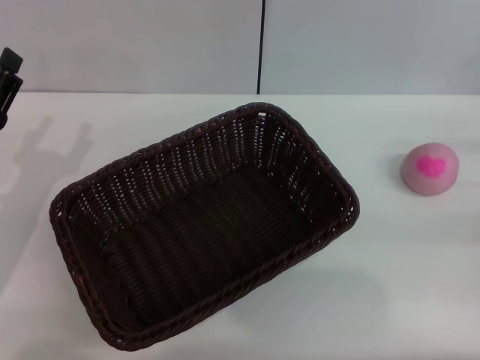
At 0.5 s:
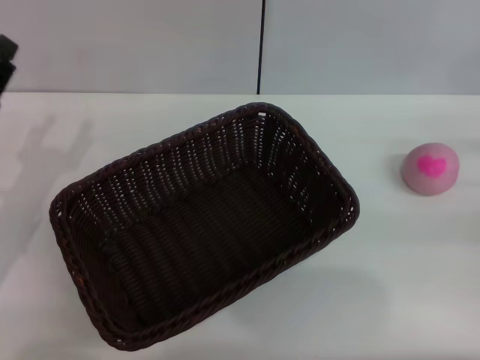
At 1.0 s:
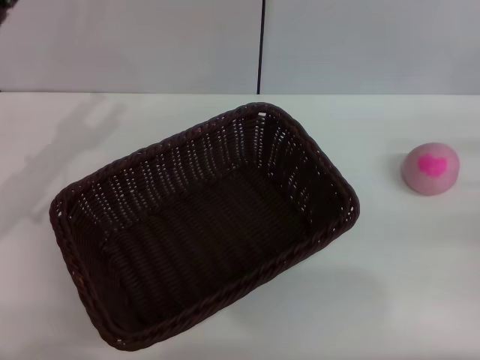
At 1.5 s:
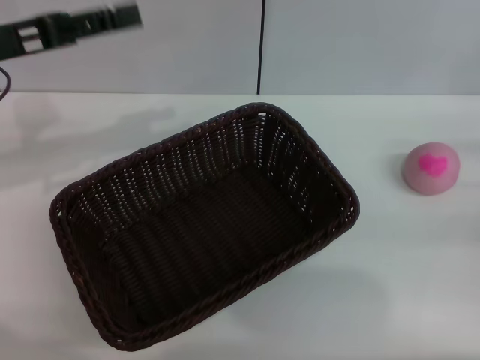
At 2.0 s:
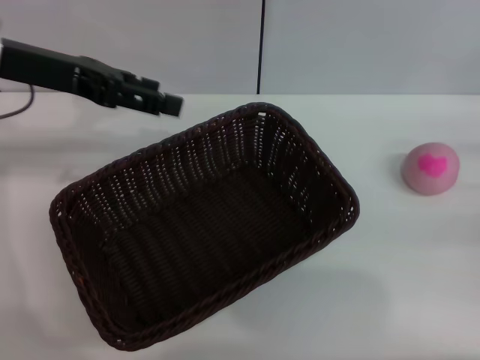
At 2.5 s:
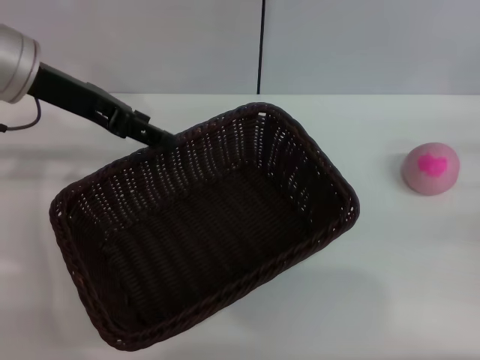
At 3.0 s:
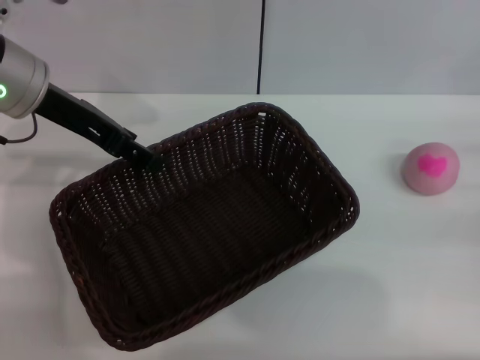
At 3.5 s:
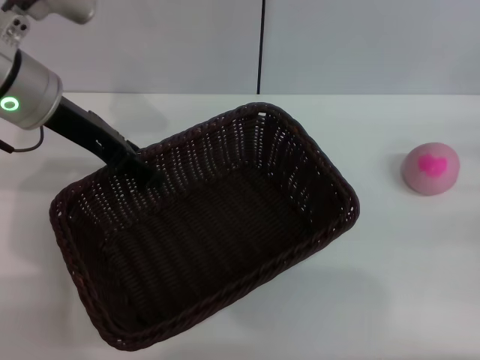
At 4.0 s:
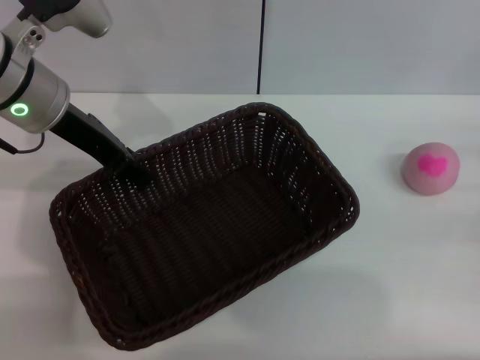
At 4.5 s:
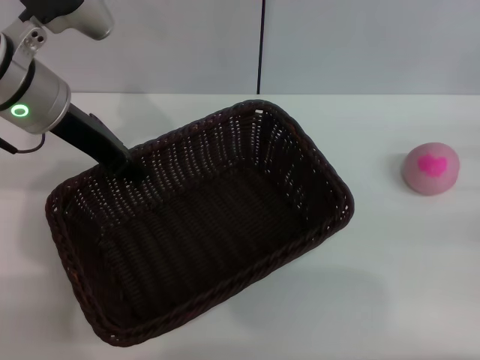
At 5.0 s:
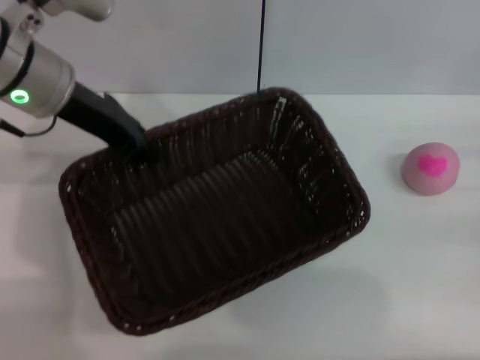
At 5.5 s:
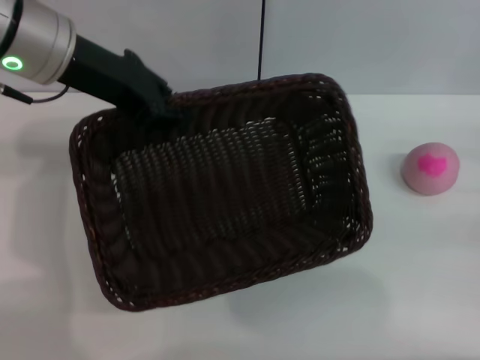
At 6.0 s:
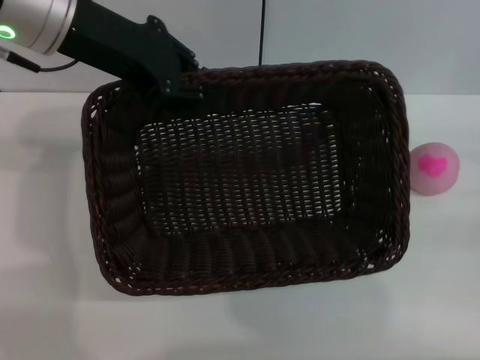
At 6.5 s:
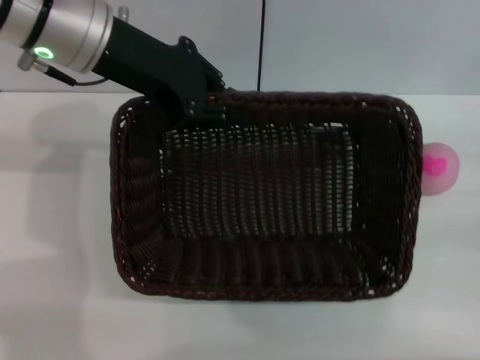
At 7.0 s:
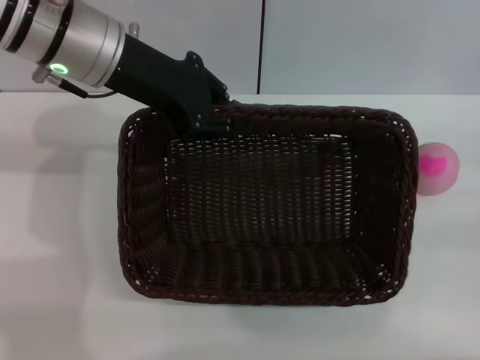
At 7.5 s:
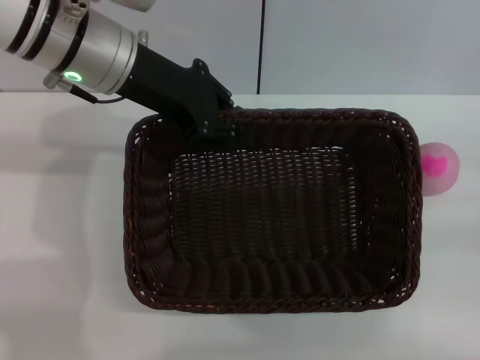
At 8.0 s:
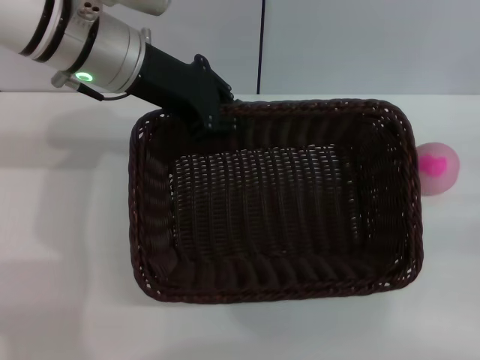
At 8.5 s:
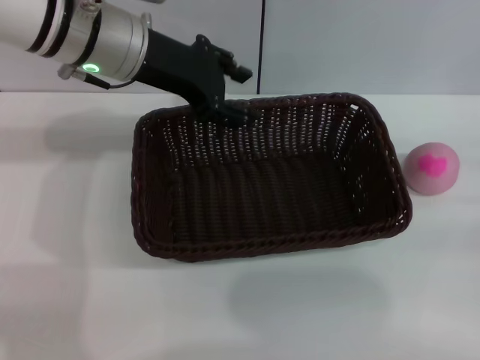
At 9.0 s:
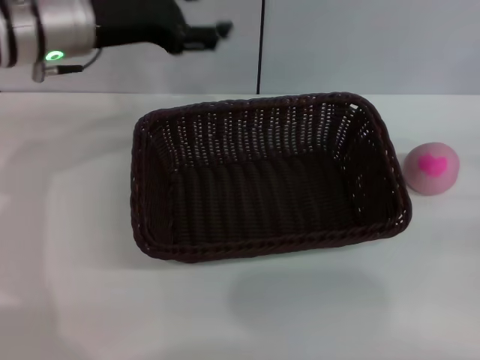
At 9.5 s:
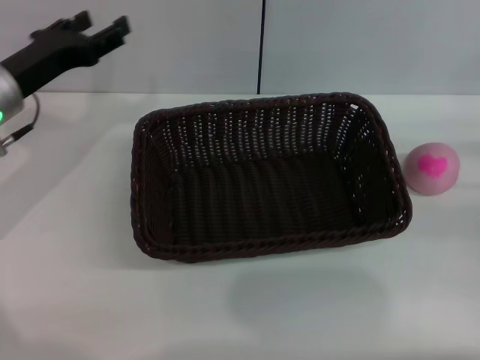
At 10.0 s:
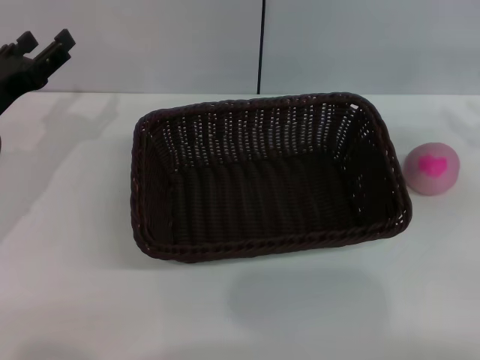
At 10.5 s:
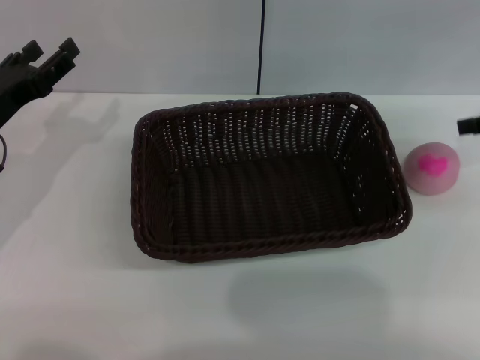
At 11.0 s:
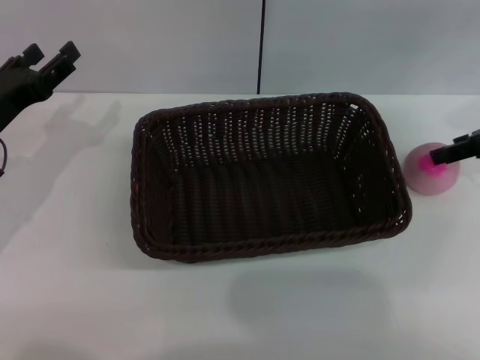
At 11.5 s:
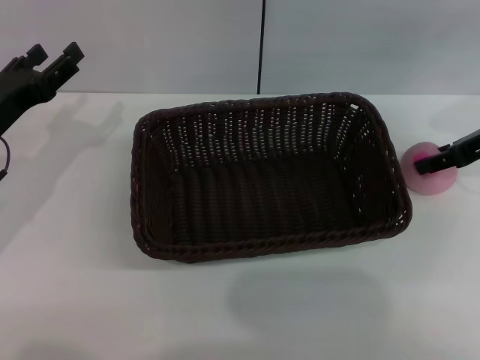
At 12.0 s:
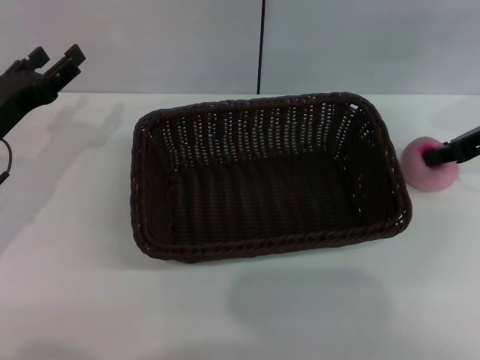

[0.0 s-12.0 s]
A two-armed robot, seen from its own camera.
Step, 0.0 to 4.5 s: Pick up the dark basket with the left gripper.
0.0 to 2.0 s: The left gripper is displaced upward and forward by some 20 cm.
2.0 to 4.0 s: The left gripper ends up roughly 5 cm from where it was.
4.0 to 6.0 s: The left gripper goes some 10 cm upward, and closes.
6.0 to 8.0 s: The left gripper travels downward by approximately 5 cm.
8.0 to 10.0 s: The left gripper shifts about 20 cm to the left, downward and backward, and opens. The right gripper moves upward and forward, roughly 10 cm.
10.0 to 12.0 s: The right gripper goes approximately 10 cm to the left and forward, and closes its fingers.

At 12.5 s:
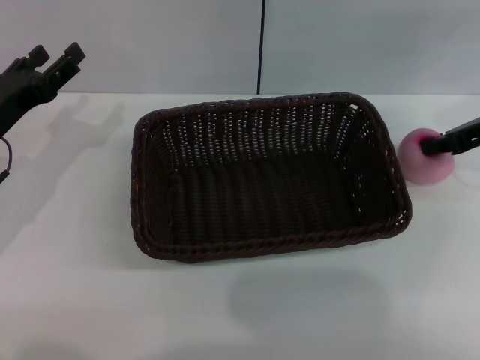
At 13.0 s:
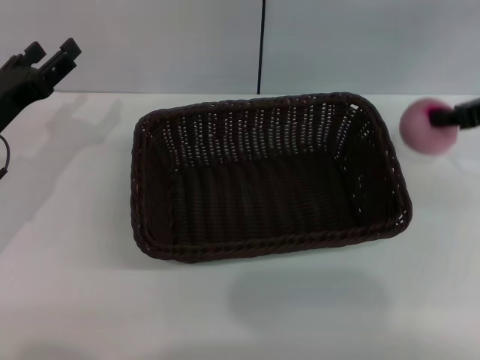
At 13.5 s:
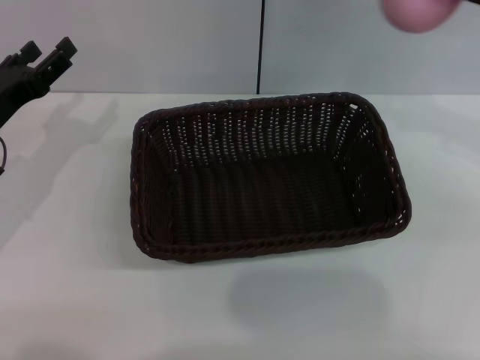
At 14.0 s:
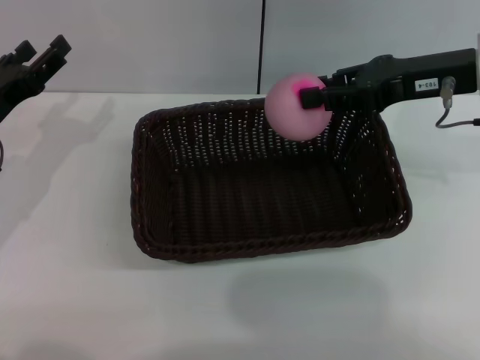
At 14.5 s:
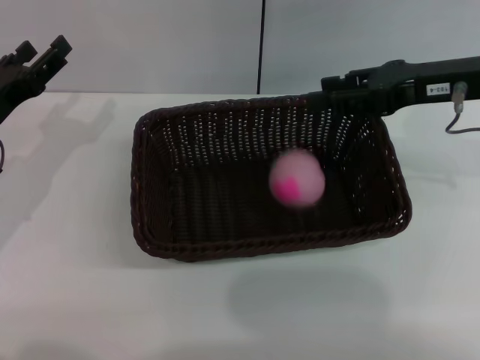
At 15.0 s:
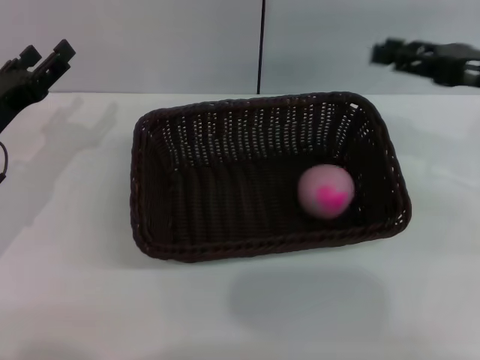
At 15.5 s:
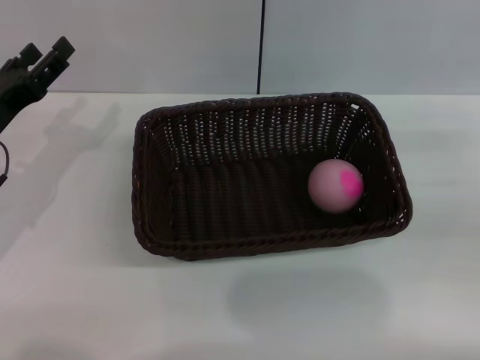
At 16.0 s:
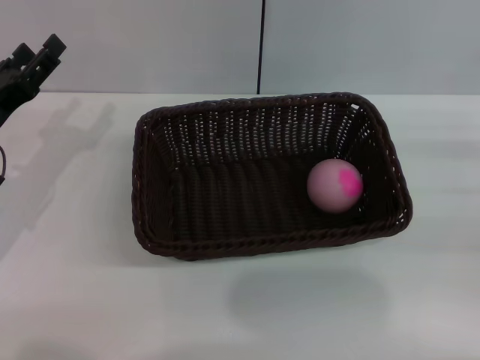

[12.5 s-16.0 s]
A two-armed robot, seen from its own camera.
12.5 to 14.5 s: The right gripper moves to the left, about 5 cm, and opens.
14.5 to 16.0 s: The right gripper shifts roughly 20 cm to the right, downward and backward.

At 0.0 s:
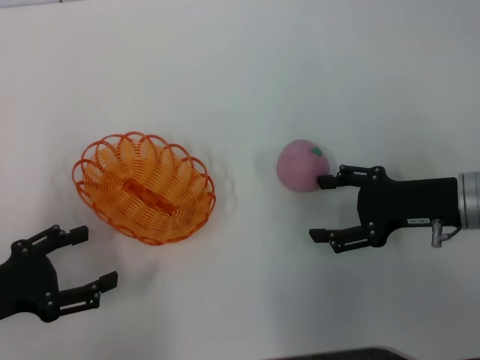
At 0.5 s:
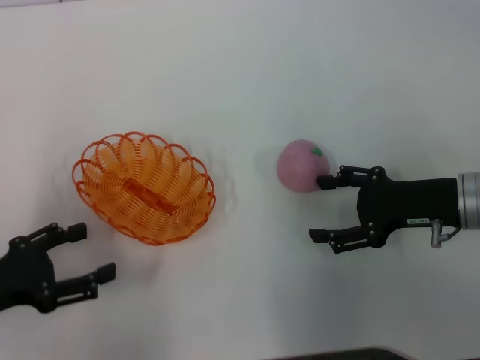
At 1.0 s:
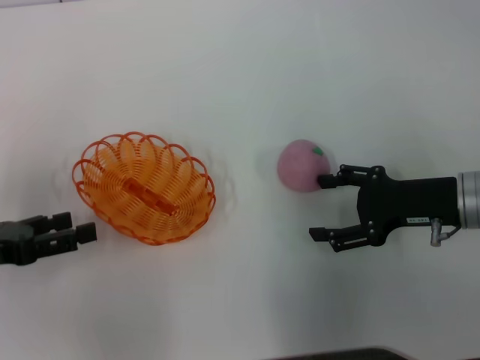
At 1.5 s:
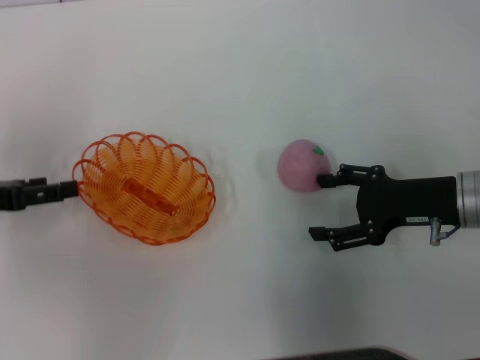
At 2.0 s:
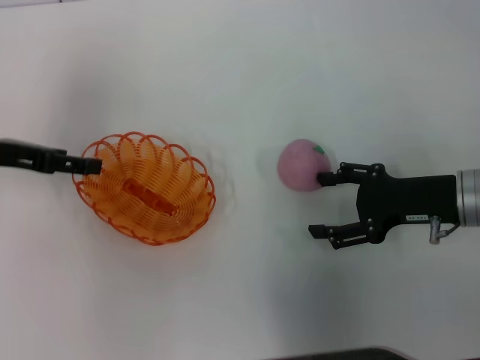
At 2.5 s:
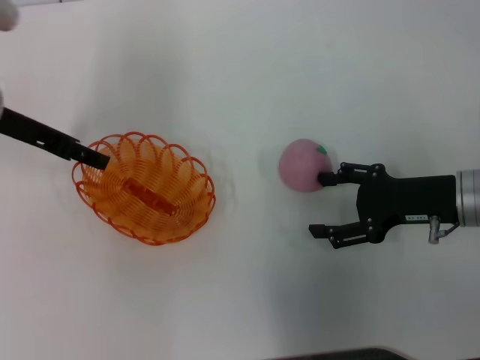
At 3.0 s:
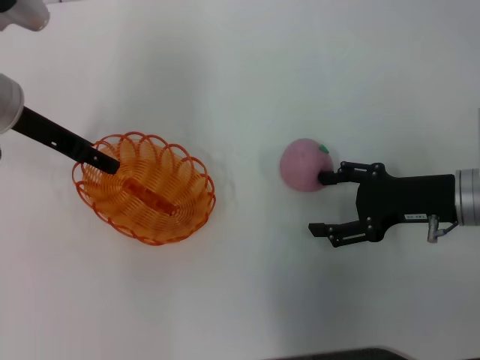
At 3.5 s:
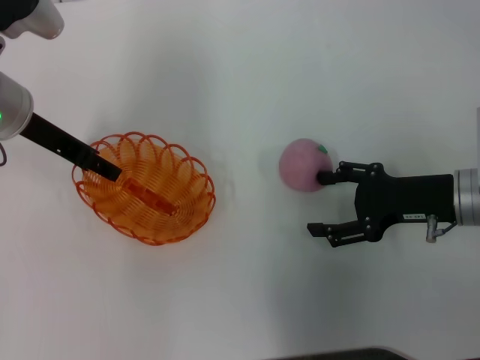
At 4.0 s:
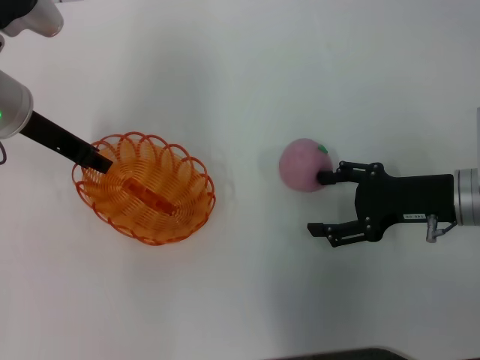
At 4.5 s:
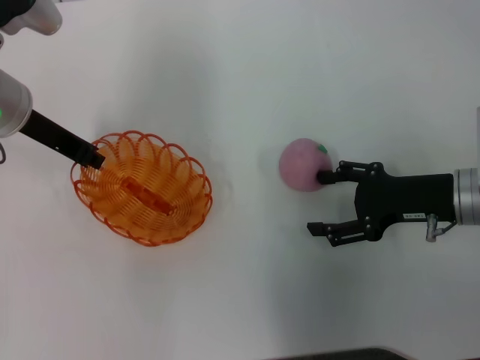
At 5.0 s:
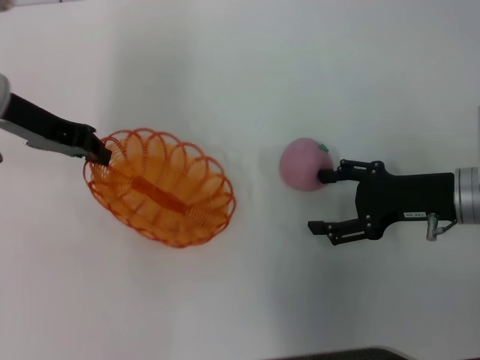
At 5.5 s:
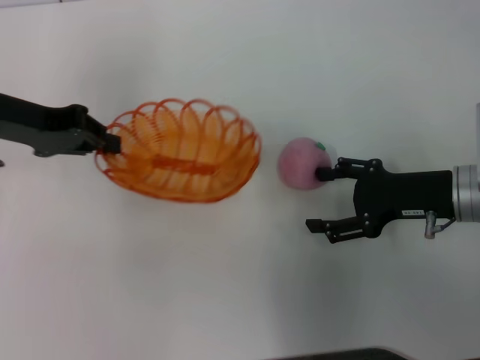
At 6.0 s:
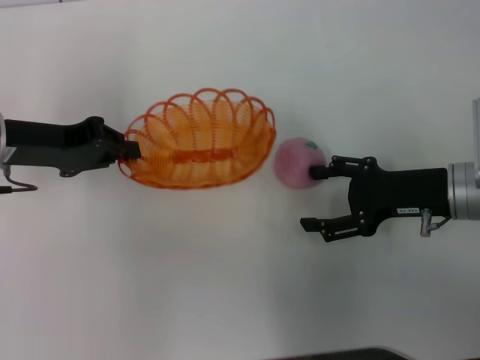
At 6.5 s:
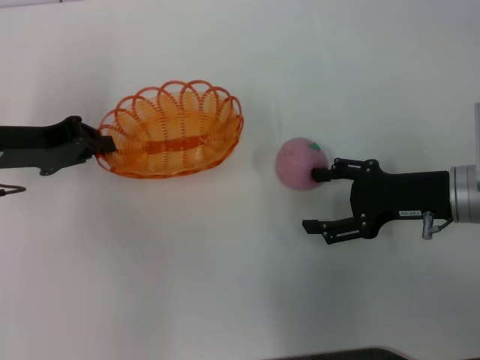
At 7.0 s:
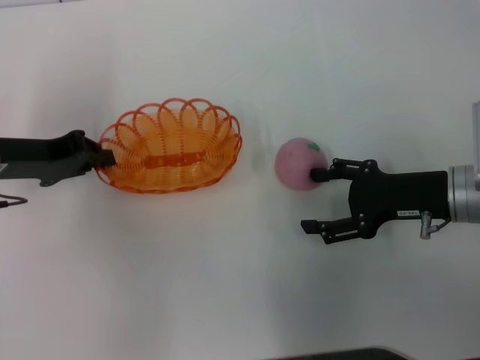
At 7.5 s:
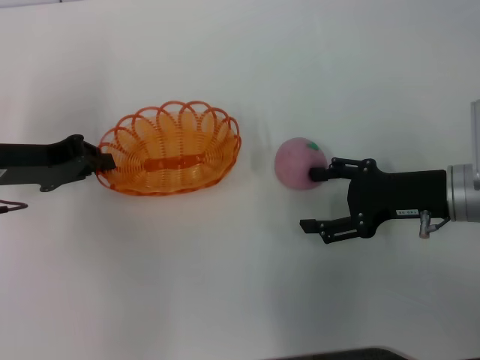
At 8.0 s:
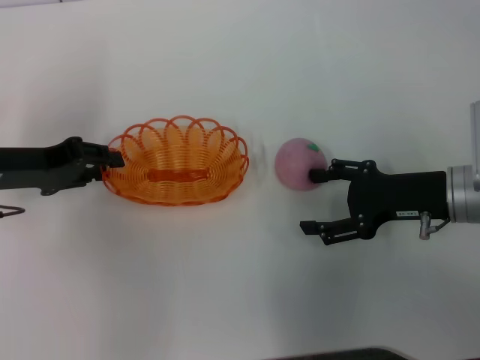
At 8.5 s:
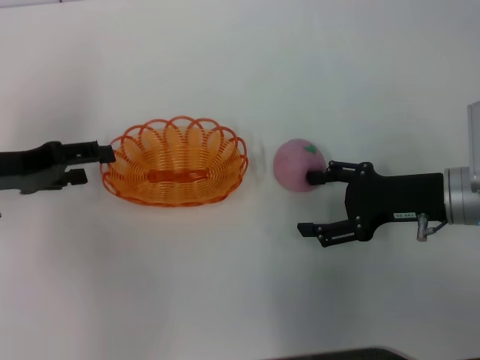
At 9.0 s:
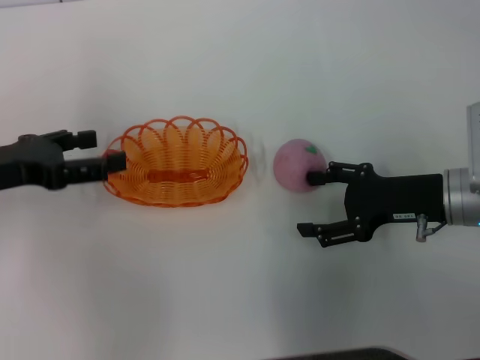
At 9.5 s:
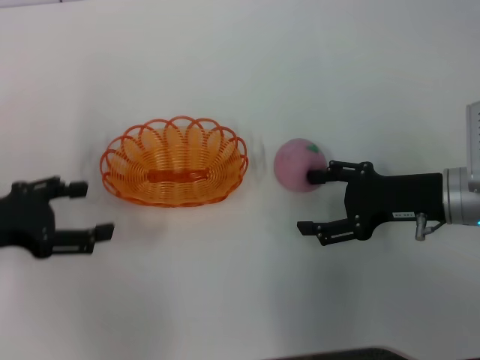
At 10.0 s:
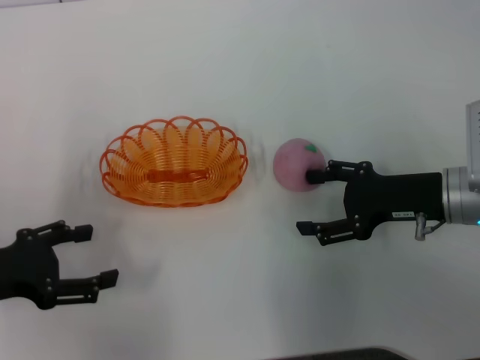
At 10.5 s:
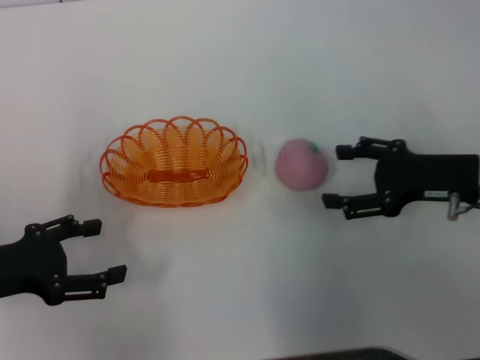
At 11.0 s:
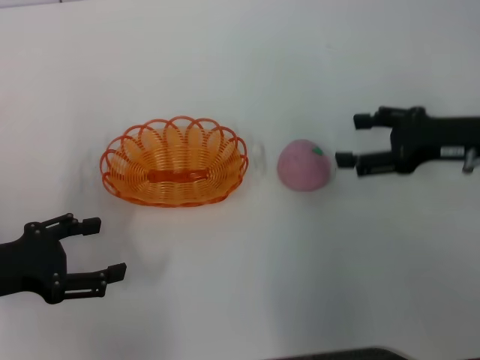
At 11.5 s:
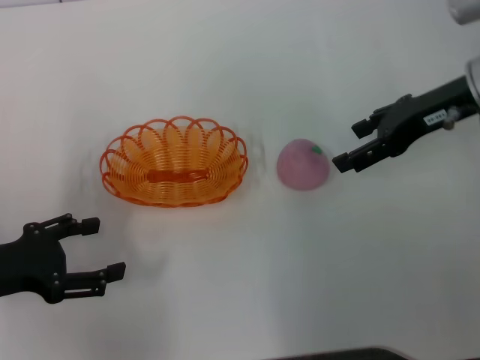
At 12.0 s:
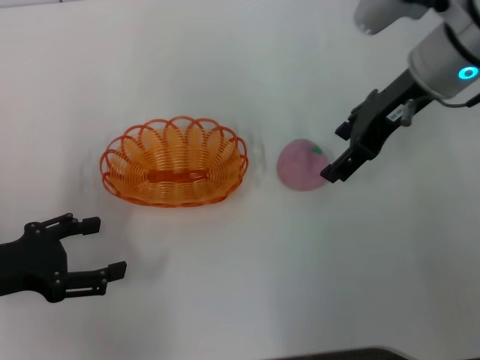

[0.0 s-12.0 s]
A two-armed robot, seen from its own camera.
Step, 0.0 to 5.0 s: Pick up the basket with the left gripper.
Step, 5.5 to 8.5 s: Place the basket in the center of view with the left gripper.
0.0 to 2.0 s: The left gripper goes roughly 15 cm forward and upward.
2.0 to 4.0 s: The left gripper goes some 10 cm to the right, and closes.
4.0 to 6.0 s: The left gripper shifts by some 5 cm, and closes up.
6.0 to 8.0 s: The grippers move only a little.
8.0 to 10.0 s: The left gripper shifts about 10 cm backward, and opens.
10.0 to 12.0 s: The right gripper heads upward, forward and to the left, covering some 15 cm.
